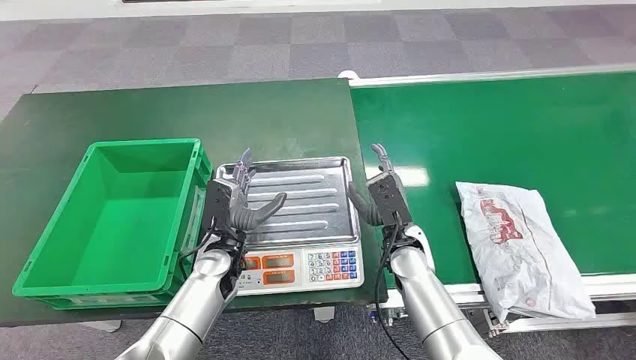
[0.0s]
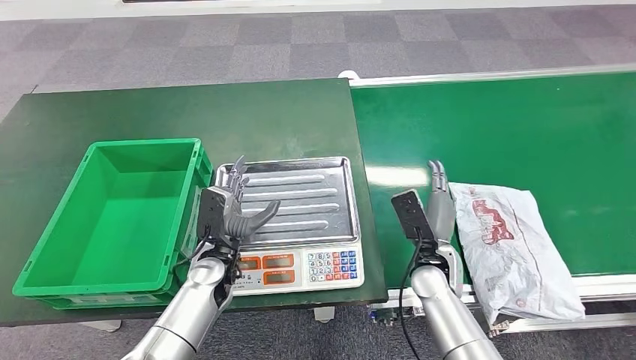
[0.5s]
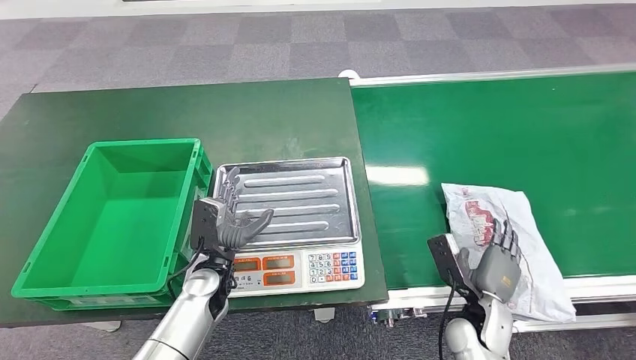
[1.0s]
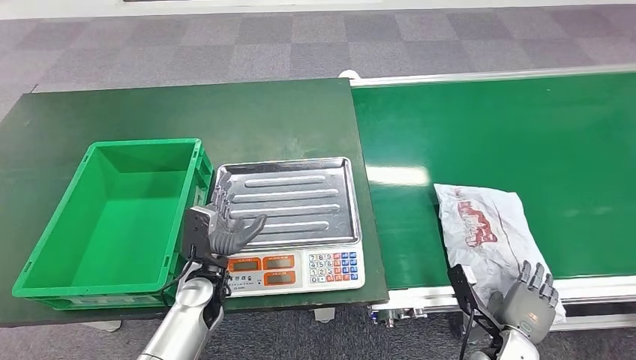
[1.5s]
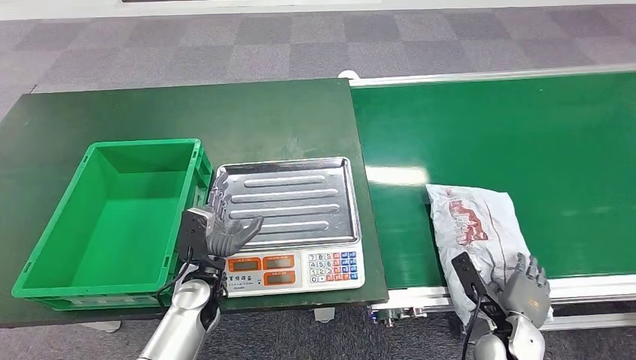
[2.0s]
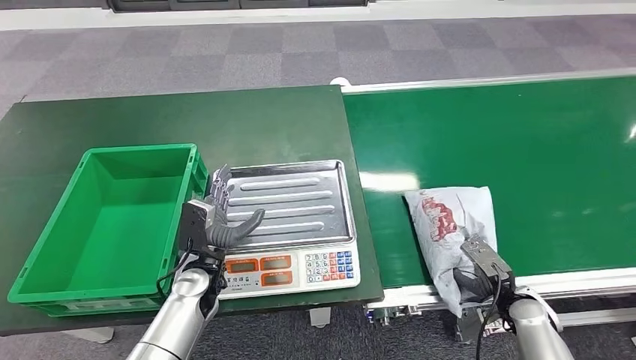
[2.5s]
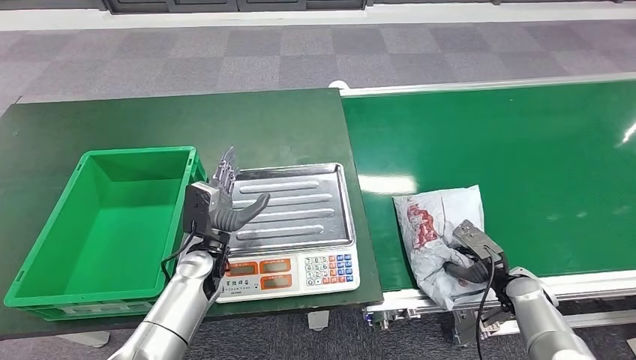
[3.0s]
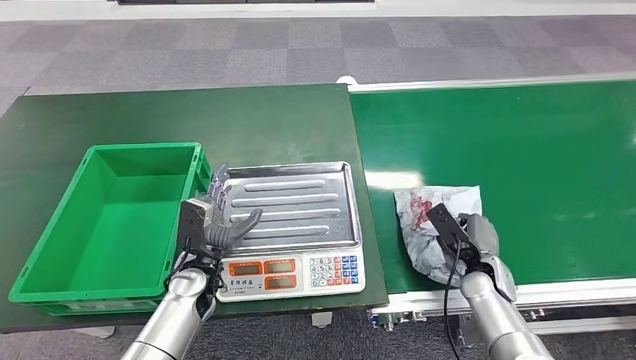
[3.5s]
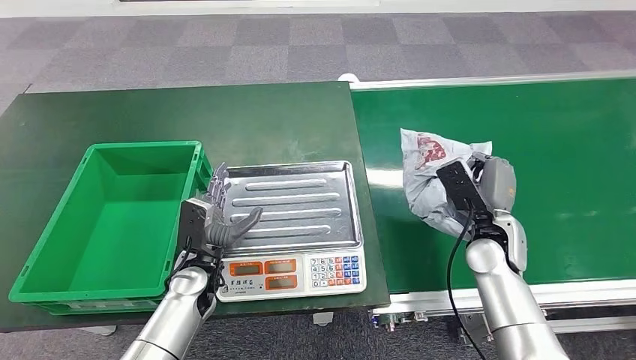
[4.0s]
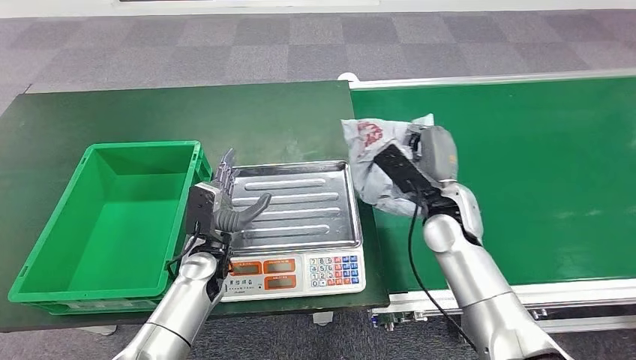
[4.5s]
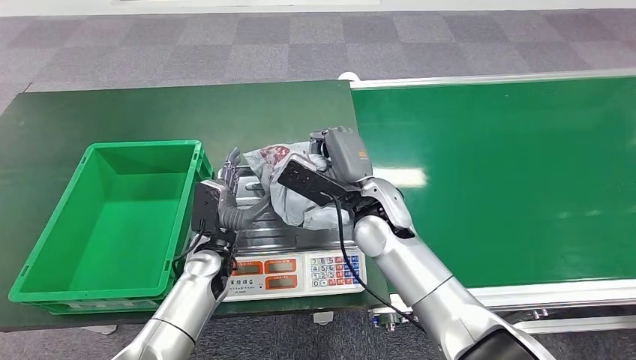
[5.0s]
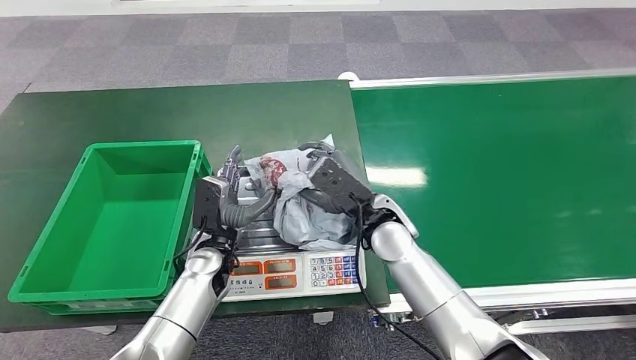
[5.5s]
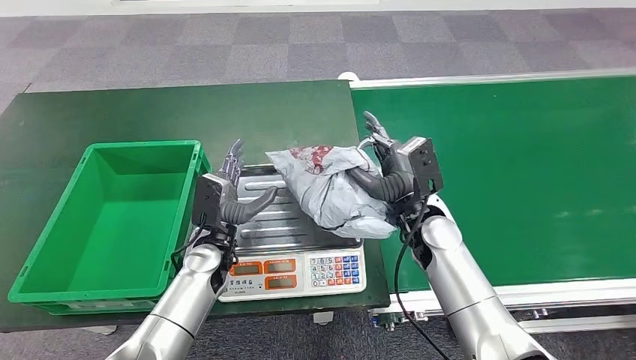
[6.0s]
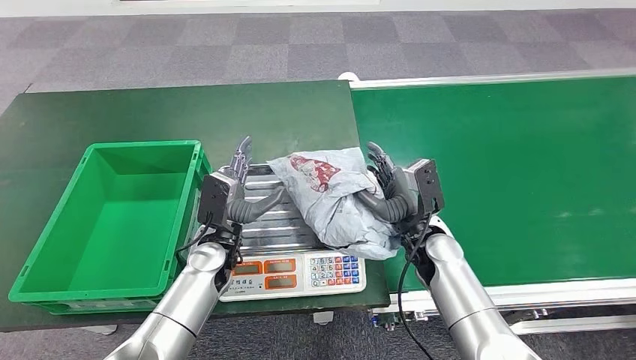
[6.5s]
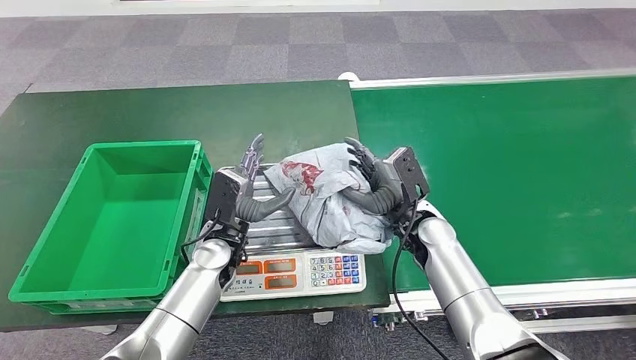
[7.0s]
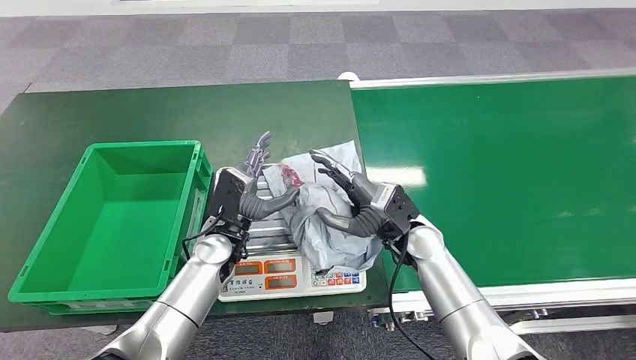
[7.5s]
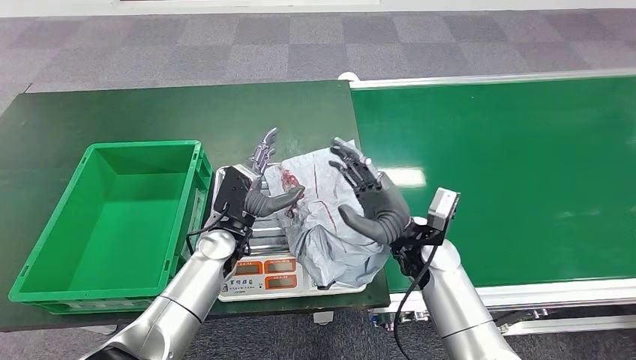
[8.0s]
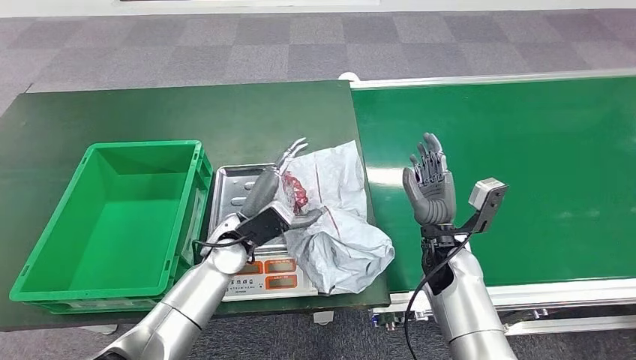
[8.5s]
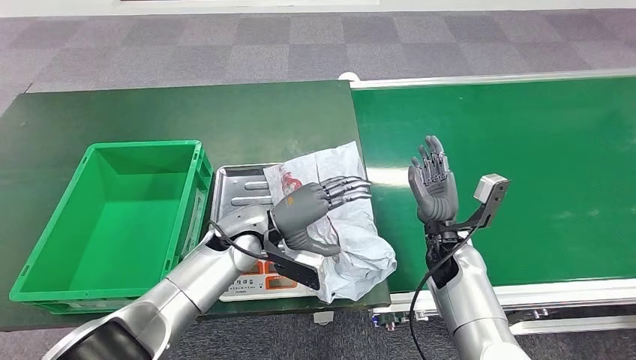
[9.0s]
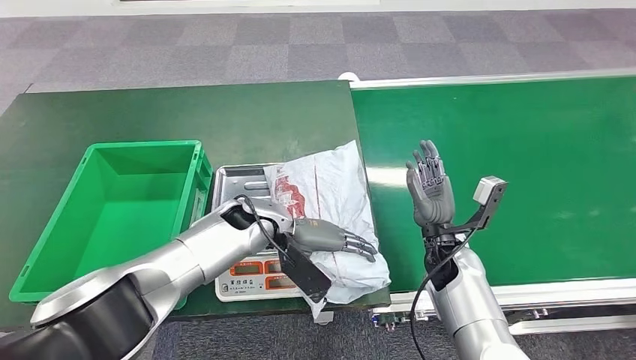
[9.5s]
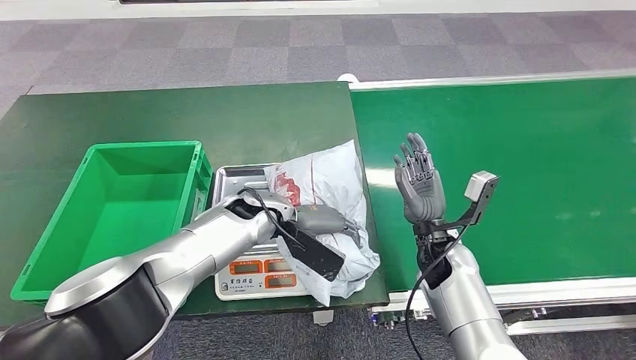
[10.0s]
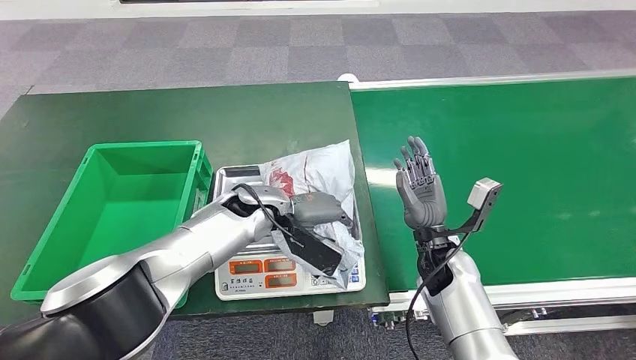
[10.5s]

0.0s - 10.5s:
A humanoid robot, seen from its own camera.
Step, 0.0s - 4.0s: Pick up the package from the conveyor belt.
Step, 4.5s - 8.0s: Place the package onto the inbound machine.
8.5s - 10.5s: The left hand travels forward by about 5 cm.

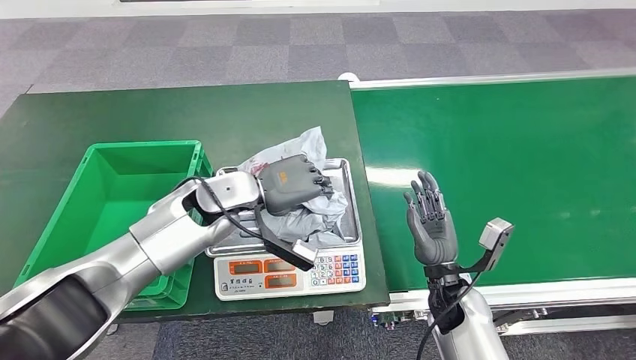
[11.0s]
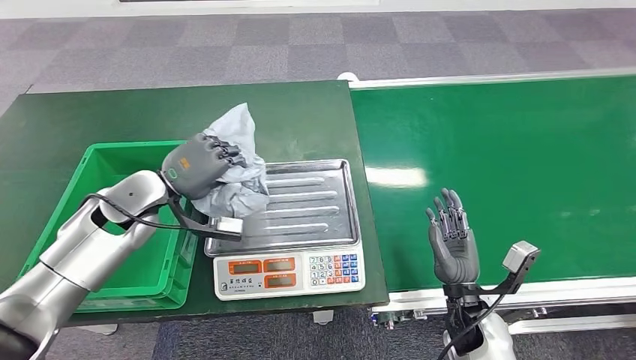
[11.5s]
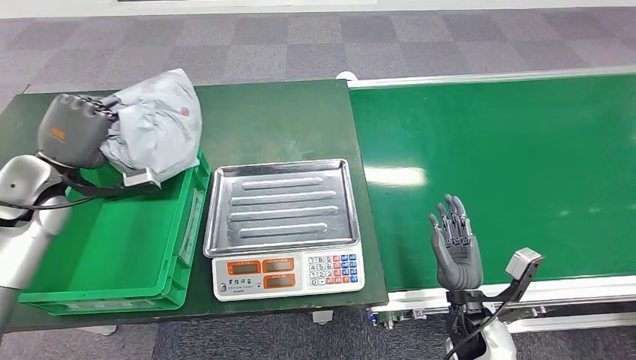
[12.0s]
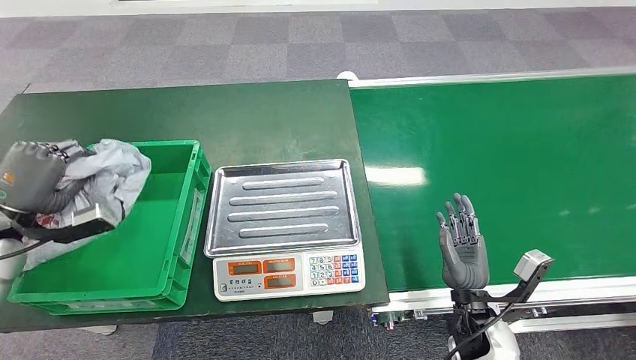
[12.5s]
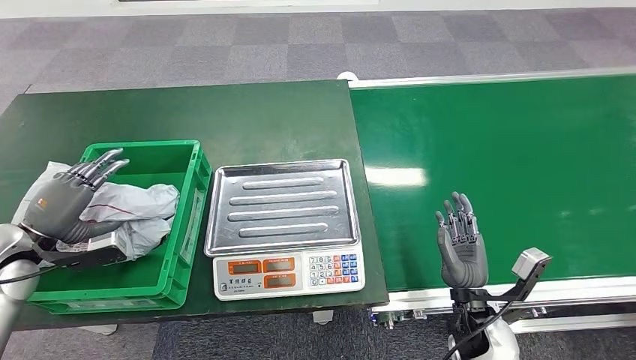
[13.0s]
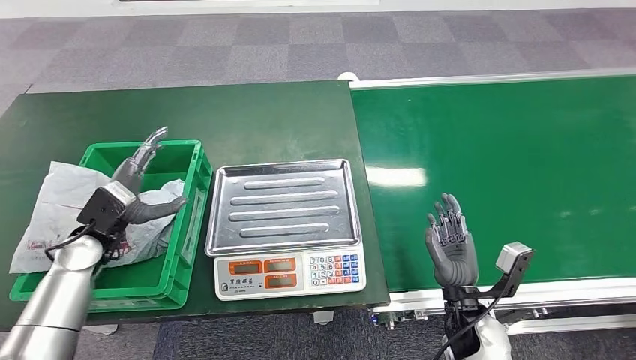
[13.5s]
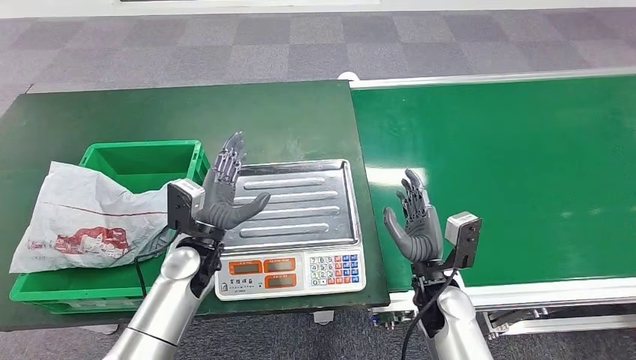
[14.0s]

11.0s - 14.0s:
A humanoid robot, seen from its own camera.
Step, 11.5s - 14.0s: Place the package into the parcel locker.
